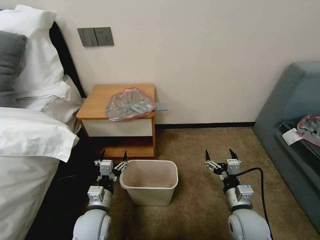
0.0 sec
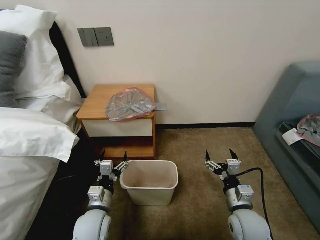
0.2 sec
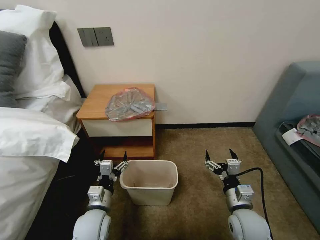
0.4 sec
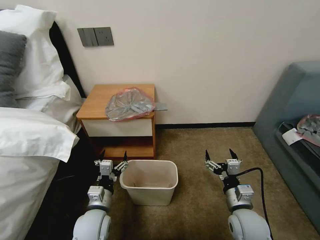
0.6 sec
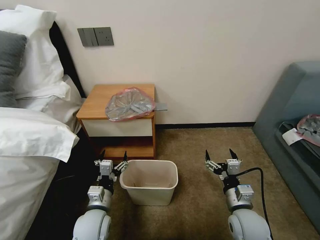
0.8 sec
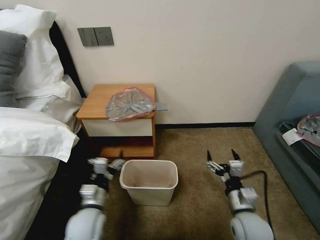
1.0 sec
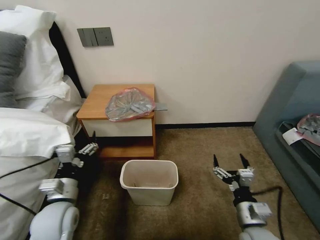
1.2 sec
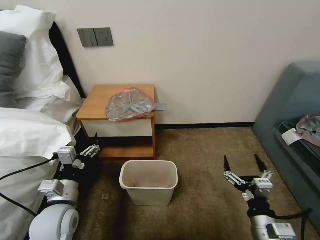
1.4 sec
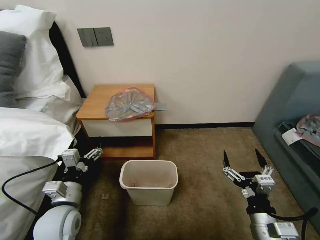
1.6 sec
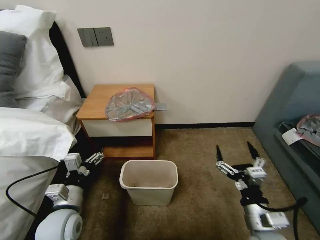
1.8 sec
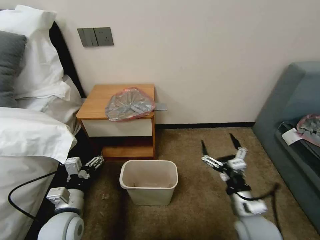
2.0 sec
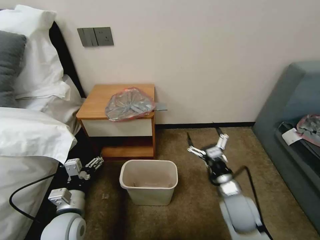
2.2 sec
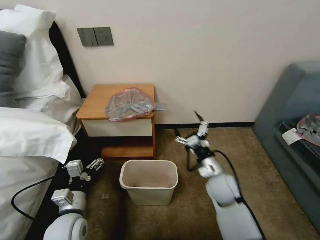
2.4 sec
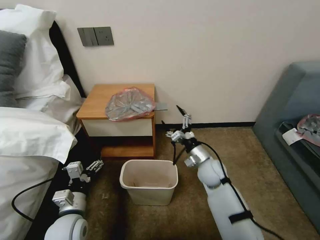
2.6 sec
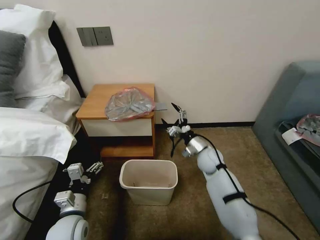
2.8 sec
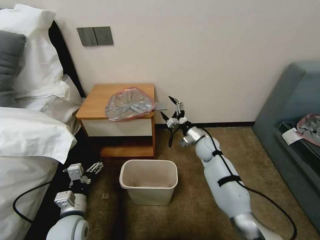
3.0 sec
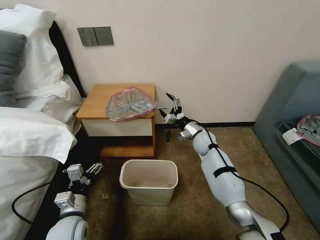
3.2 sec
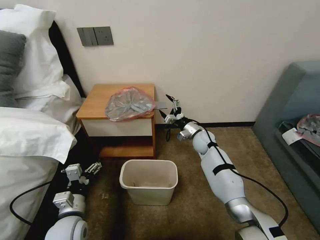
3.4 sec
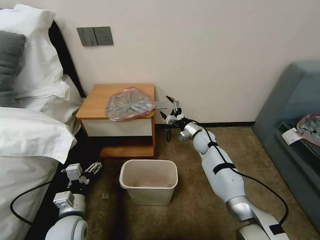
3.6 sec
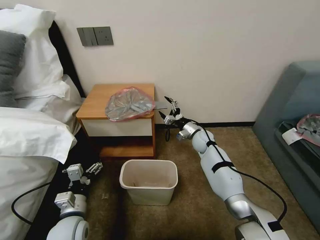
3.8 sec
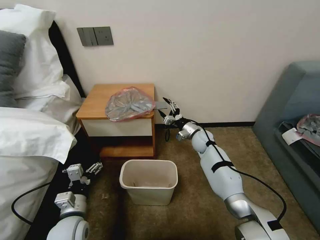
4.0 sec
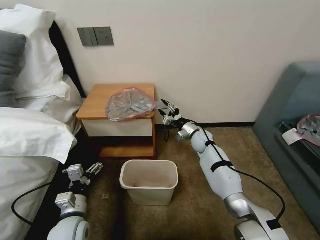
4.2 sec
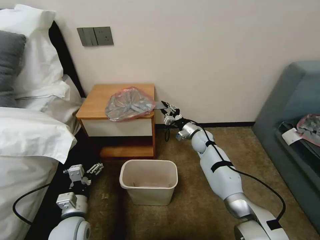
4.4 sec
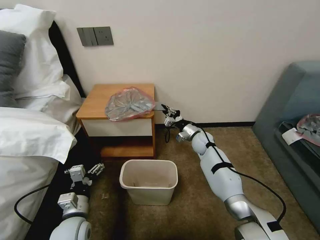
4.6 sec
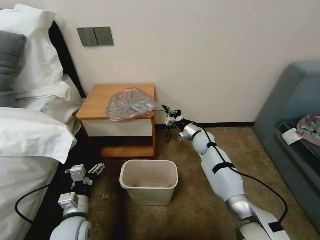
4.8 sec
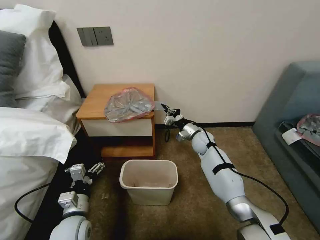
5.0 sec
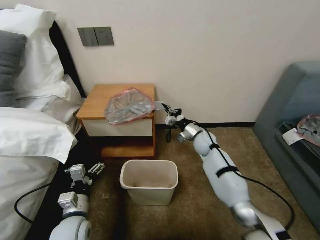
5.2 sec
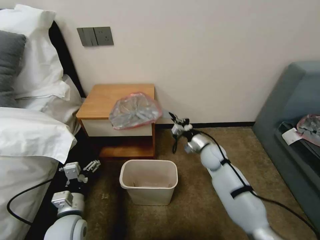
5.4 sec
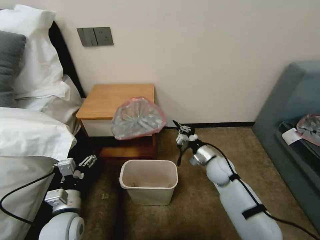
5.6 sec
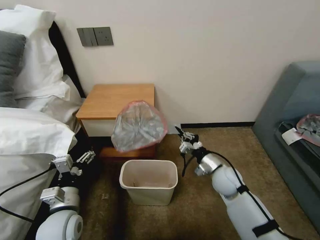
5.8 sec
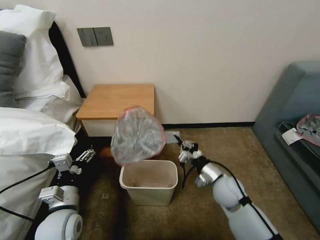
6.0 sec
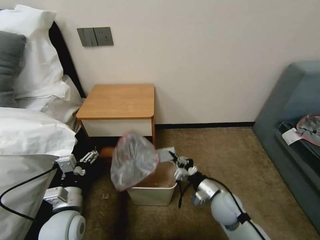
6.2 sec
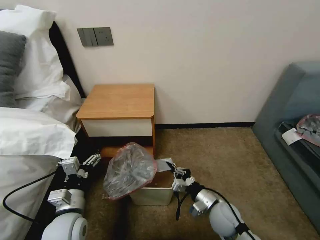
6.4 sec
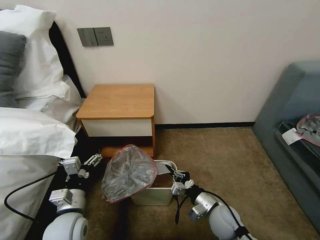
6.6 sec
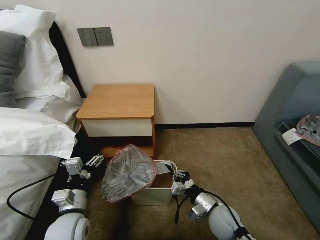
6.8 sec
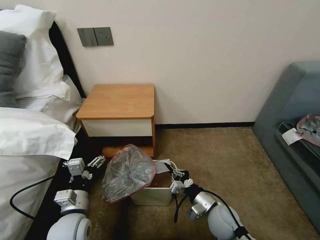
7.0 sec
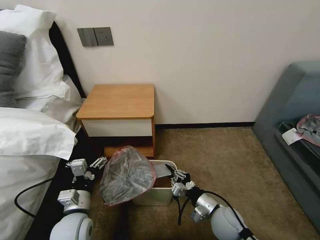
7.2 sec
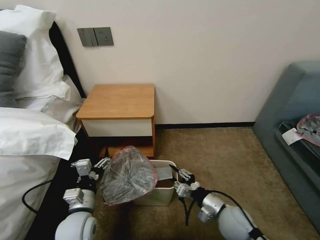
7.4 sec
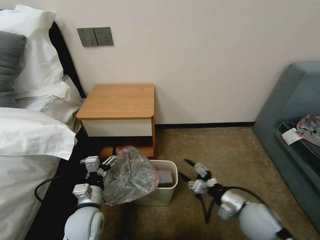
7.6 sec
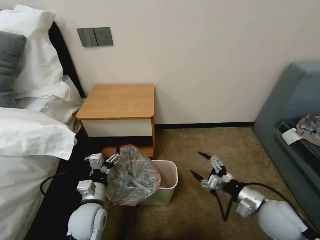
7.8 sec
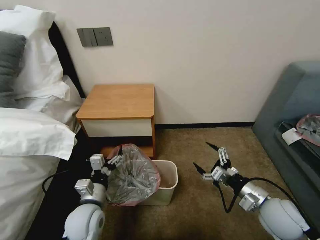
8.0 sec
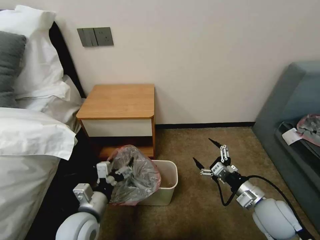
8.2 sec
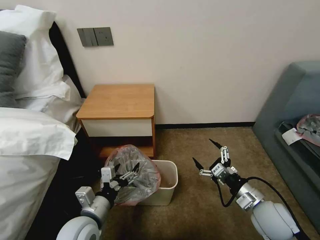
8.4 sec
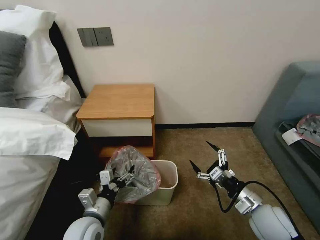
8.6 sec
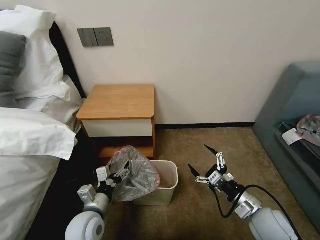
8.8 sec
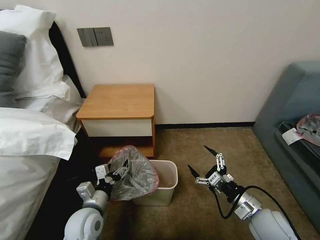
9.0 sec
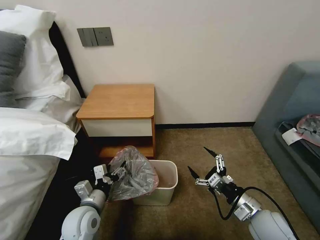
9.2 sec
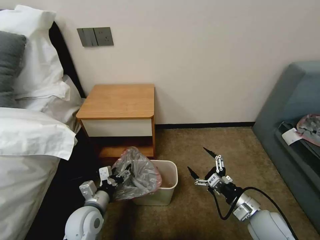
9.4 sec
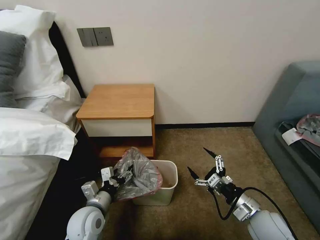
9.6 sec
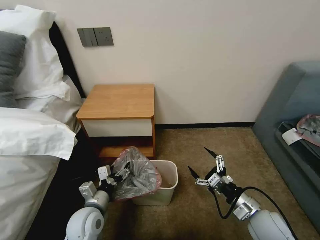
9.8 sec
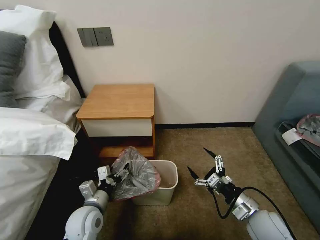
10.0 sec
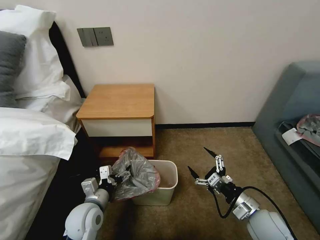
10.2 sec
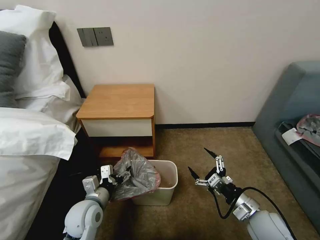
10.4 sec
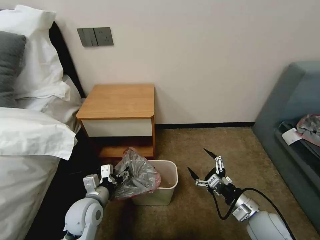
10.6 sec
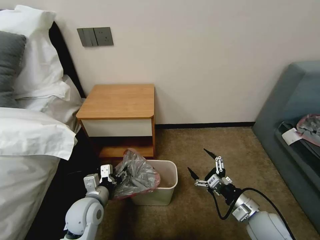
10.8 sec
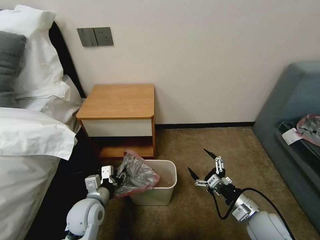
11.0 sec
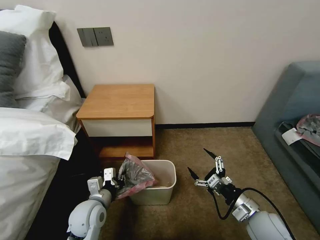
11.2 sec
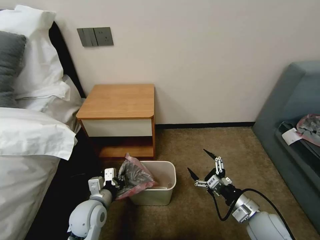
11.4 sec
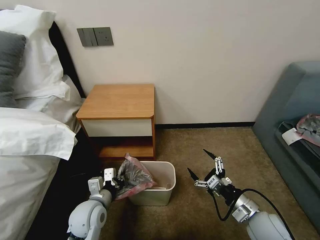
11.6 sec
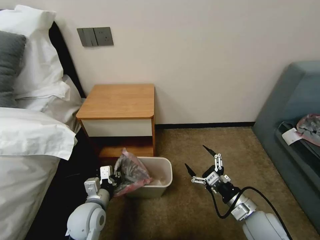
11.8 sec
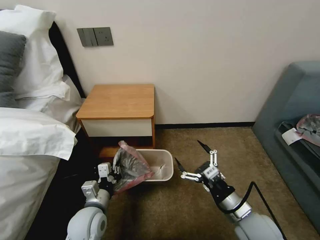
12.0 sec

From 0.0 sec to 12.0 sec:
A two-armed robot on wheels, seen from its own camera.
Task of the whole recording: Pick up the garbage bag from the table and place it over the trash can.
From 1.6 sec to 3.0 sec: The left gripper moves downward, about 5 cm. Meanwhile the right gripper is displaced forward by about 35 cm.
From 3.0 sec to 4.4 sec: The right gripper moves forward, some 5 cm, and closes up.
From 4.4 sec to 6.0 sec: The left gripper shifts roughly 5 cm upward. Meanwhile the right gripper moves backward, about 20 cm.
From 6.0 sec to 7.6 sec: The left gripper ends up roughly 5 cm from where it was. The right gripper shifts approximately 10 cm backward, and opens.
From 7.6 sec to 9.0 sec: The right gripper opens.
From 9.0 sec to 10.4 sec: The grippers stay close to where they were, moving slightly.
From 10.4 sec to 12.0 sec: The left gripper closes its fingers; the right gripper moves about 5 cm.

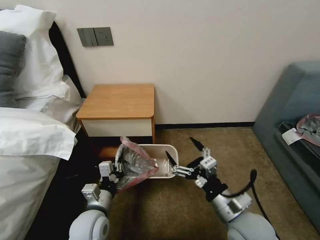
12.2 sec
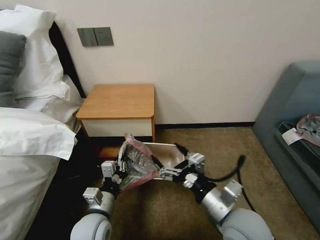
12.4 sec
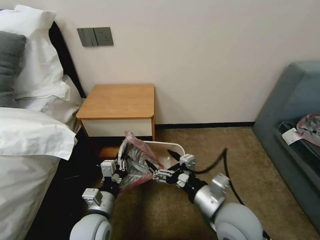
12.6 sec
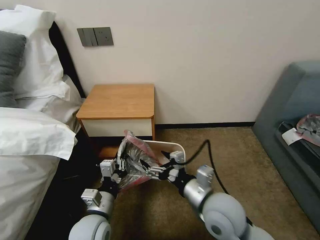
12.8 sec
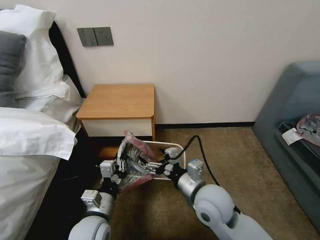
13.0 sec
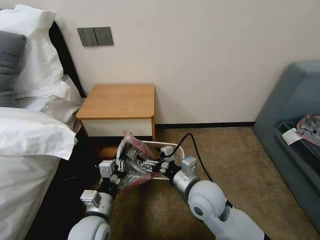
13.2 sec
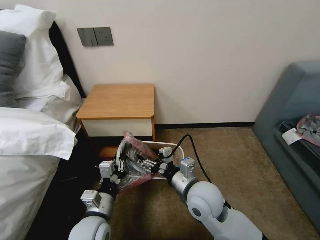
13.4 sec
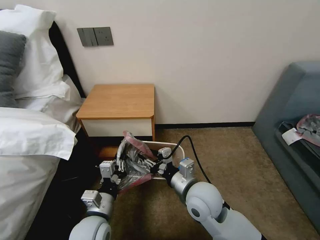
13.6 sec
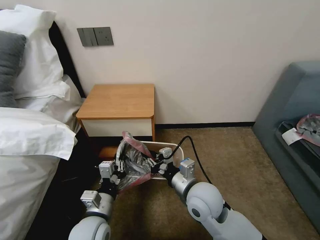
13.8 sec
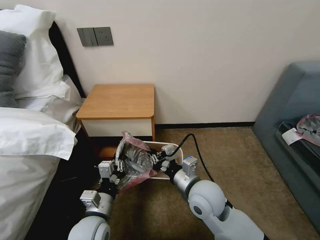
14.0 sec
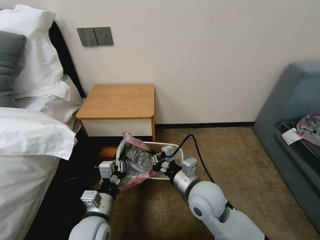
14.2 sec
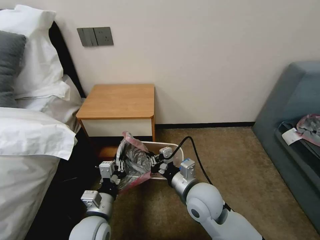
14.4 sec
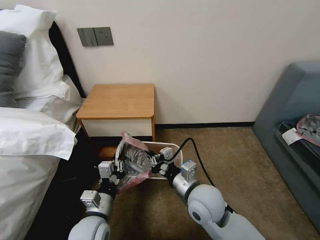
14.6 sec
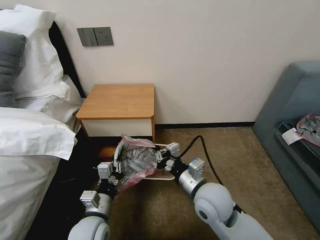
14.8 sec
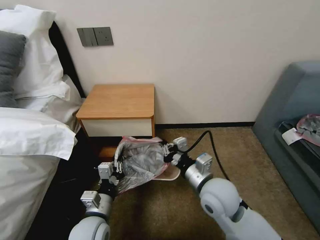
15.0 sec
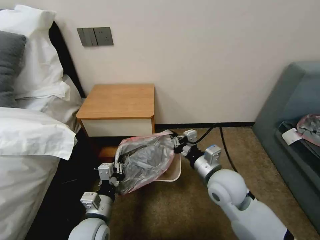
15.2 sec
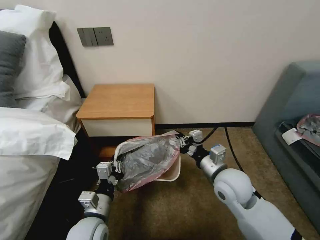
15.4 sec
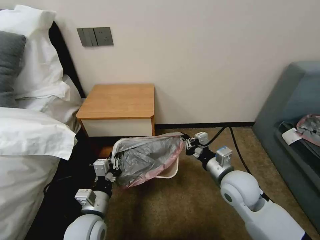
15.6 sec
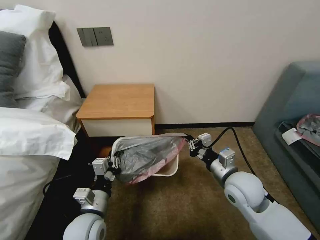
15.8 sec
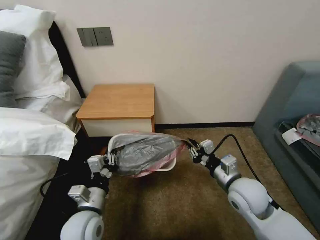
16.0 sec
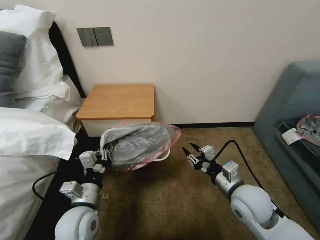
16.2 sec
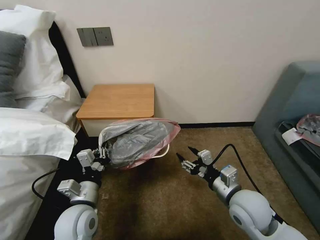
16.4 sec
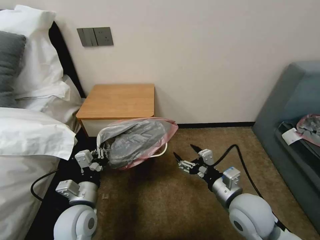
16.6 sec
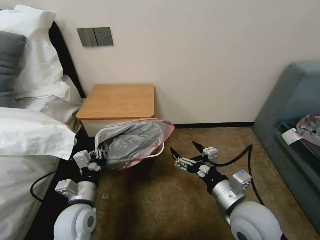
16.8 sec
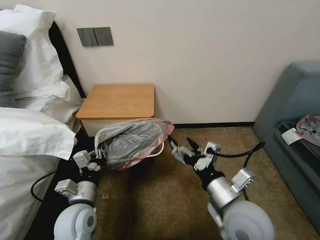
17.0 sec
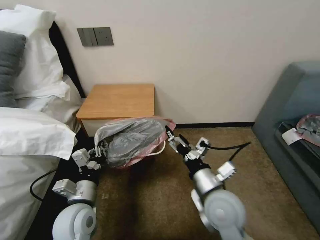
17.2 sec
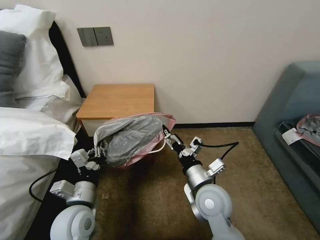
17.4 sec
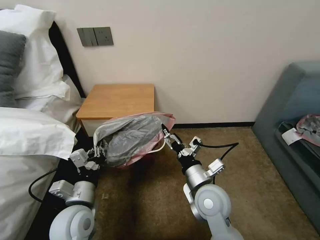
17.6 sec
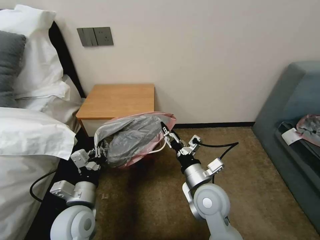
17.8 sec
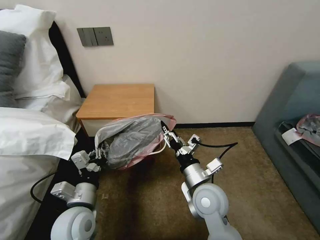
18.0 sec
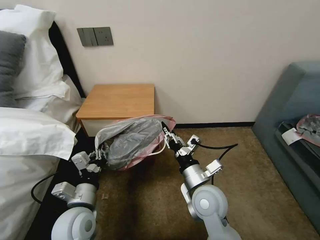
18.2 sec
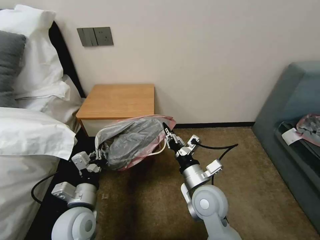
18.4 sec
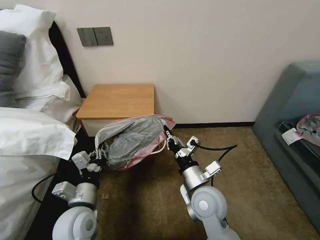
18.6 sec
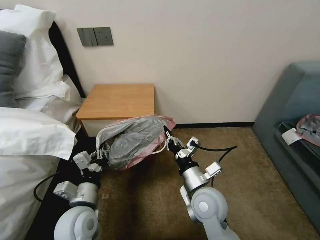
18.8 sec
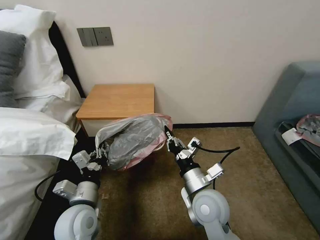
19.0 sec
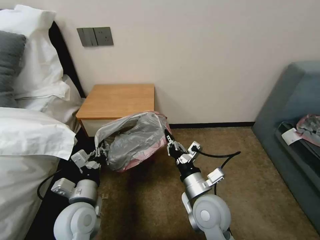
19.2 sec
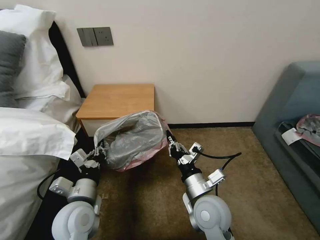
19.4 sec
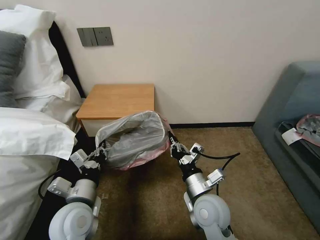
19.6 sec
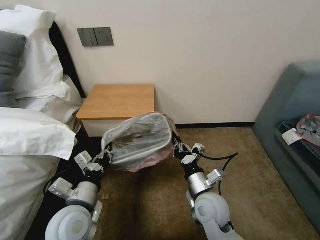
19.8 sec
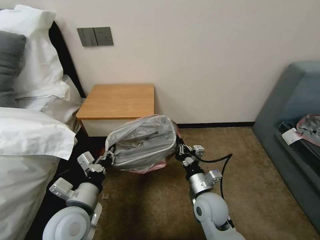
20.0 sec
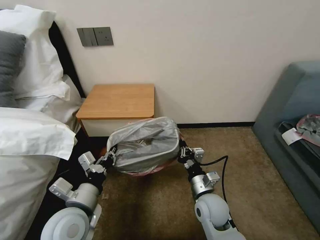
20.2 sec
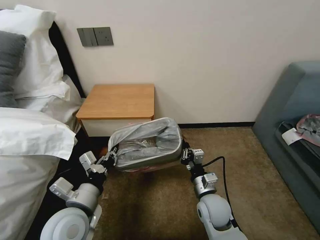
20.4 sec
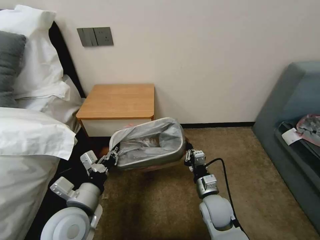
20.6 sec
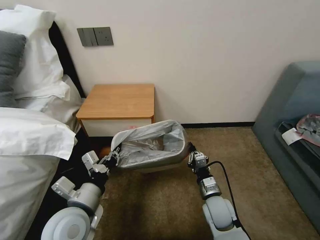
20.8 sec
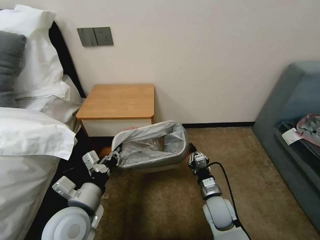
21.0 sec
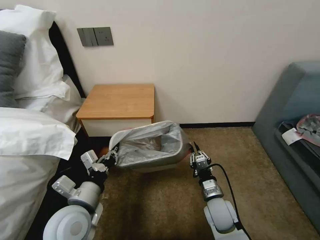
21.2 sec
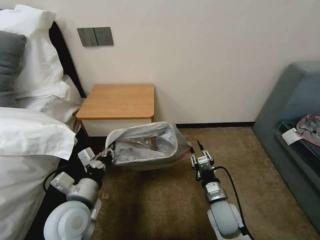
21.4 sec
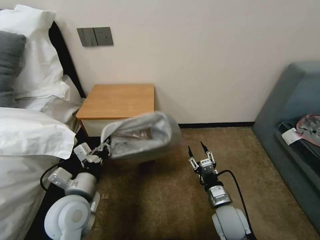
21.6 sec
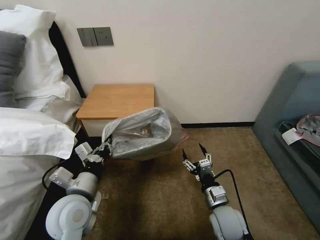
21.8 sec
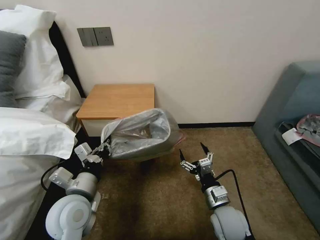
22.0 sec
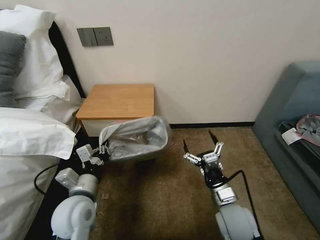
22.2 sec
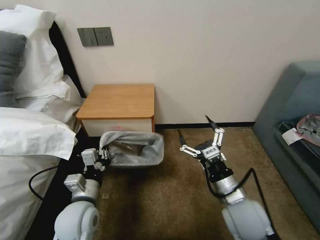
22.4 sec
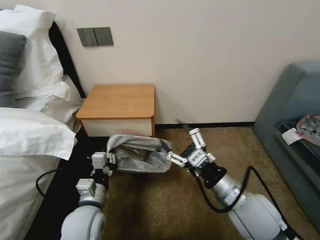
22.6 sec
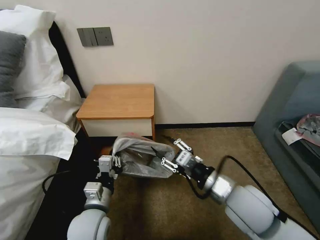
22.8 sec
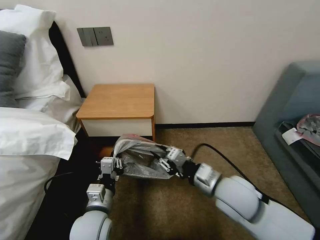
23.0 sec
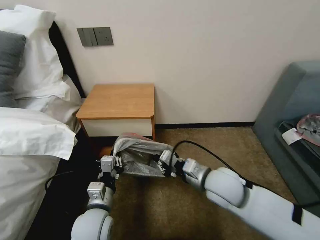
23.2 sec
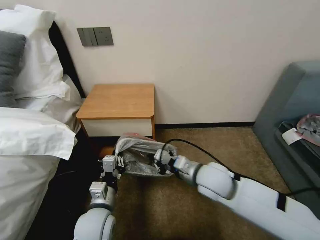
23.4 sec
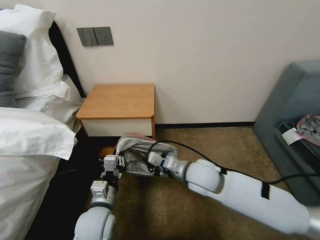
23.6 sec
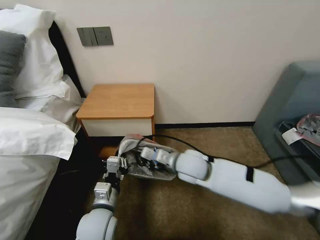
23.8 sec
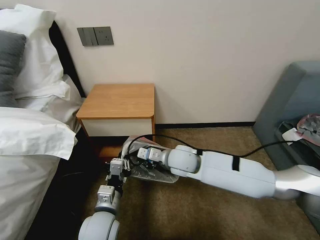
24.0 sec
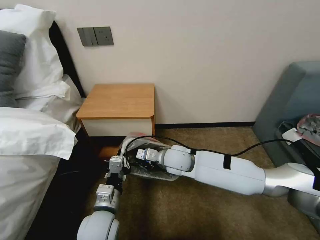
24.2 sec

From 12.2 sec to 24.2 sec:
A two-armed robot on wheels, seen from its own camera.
Task of the whole recording: Pick up the garbage bag from the table and place it over the trash can.
From 12.2 sec to 13.8 sec: The right gripper travels to the left and forward by roughly 10 cm, and closes its fingers.
From 13.8 sec to 15.2 sec: The right gripper is displaced to the right by some 5 cm.
From 15.2 sec to 16.6 sec: The right gripper travels backward by some 5 cm, and opens. Meanwhile the left gripper moves roughly 5 cm.
From 16.6 sec to 18.2 sec: The right gripper travels to the left by some 10 cm, and closes up.
From 18.2 sec to 19.8 sec: The right gripper closes up.
From 19.8 sec to 21.2 sec: The right gripper heads downward and to the right, covering roughly 10 cm.
From 21.2 sec to 22.6 sec: The left gripper shifts some 5 cm downward, while the right gripper shifts roughly 20 cm upward, and opens up.
From 22.6 sec to 24.2 sec: The right gripper is displaced forward and to the left by approximately 25 cm, and closes up.
